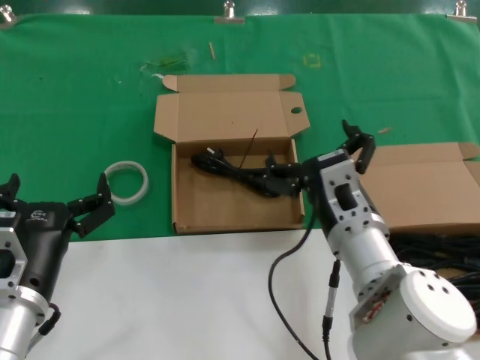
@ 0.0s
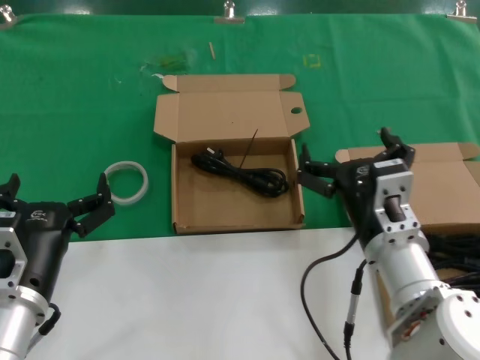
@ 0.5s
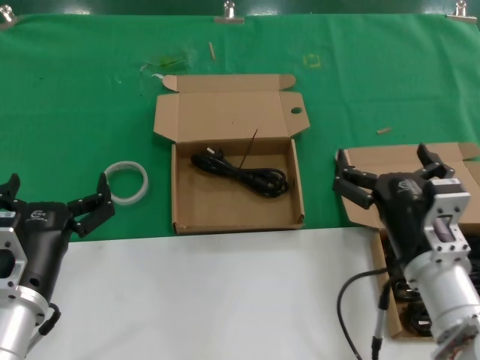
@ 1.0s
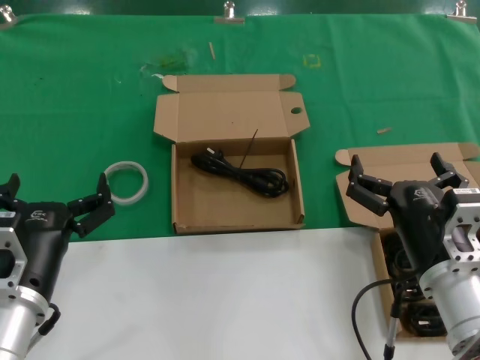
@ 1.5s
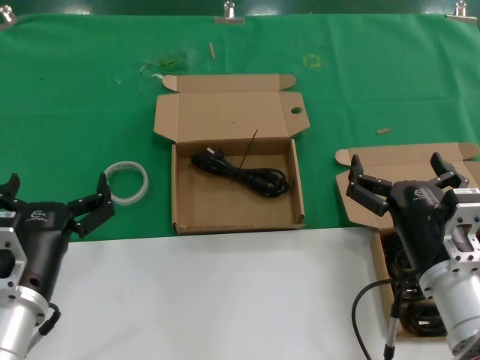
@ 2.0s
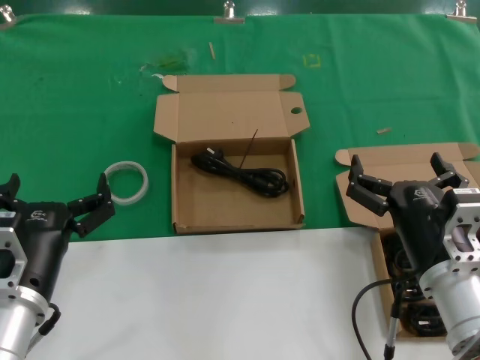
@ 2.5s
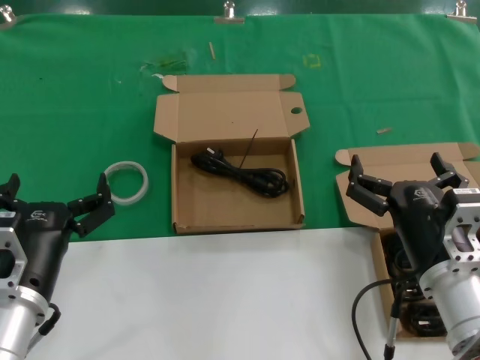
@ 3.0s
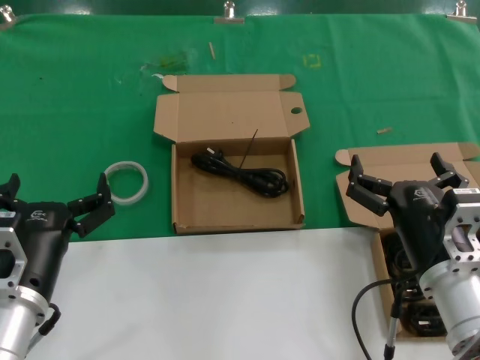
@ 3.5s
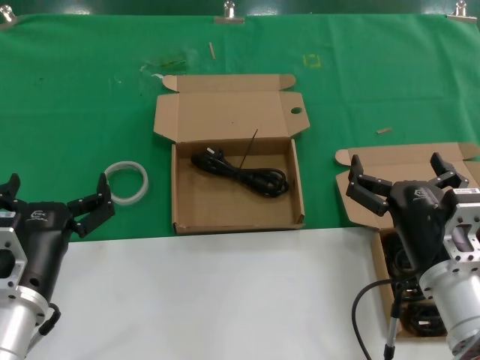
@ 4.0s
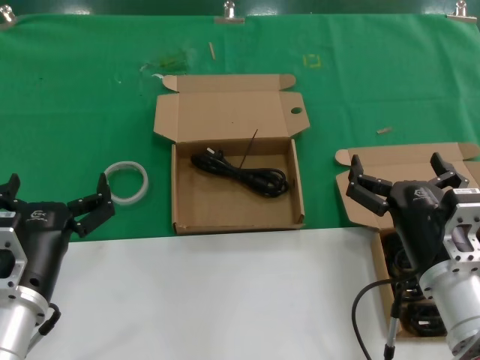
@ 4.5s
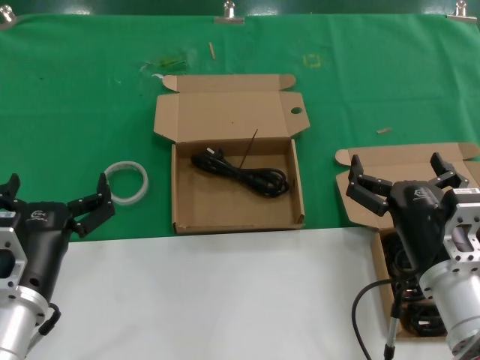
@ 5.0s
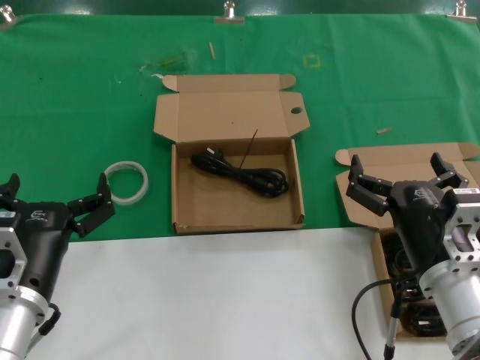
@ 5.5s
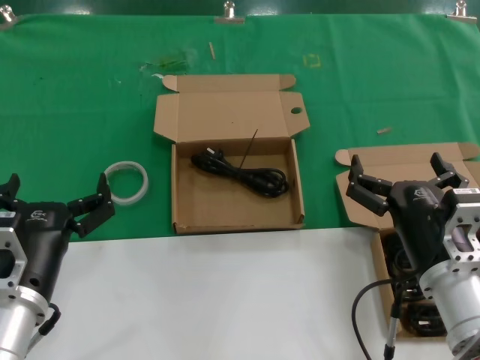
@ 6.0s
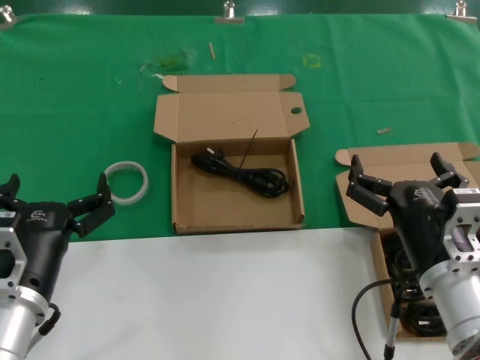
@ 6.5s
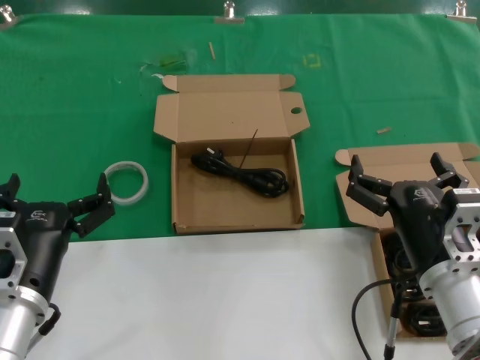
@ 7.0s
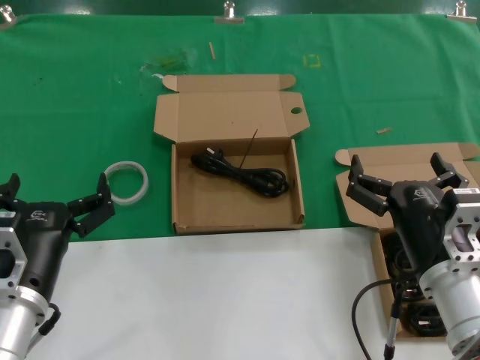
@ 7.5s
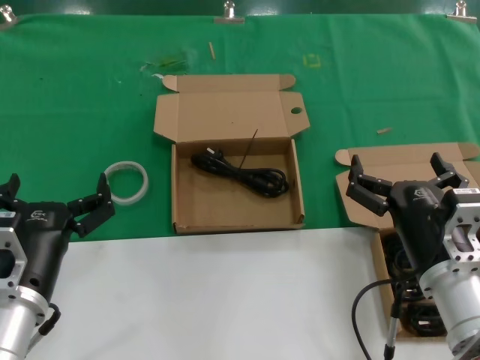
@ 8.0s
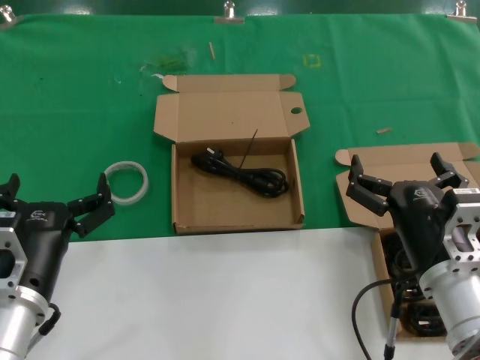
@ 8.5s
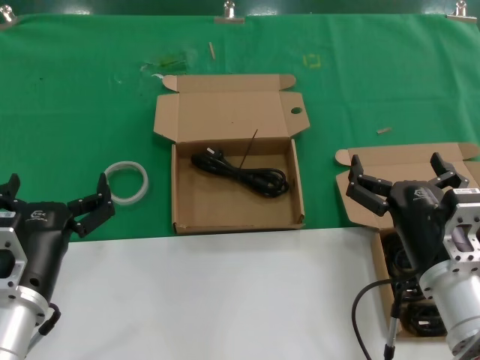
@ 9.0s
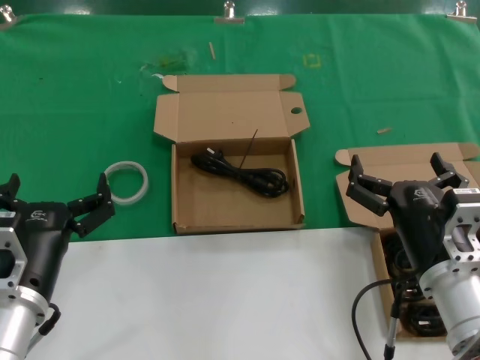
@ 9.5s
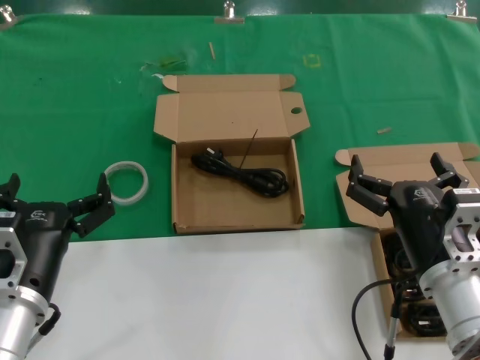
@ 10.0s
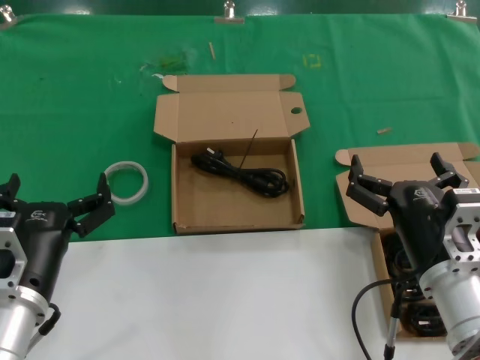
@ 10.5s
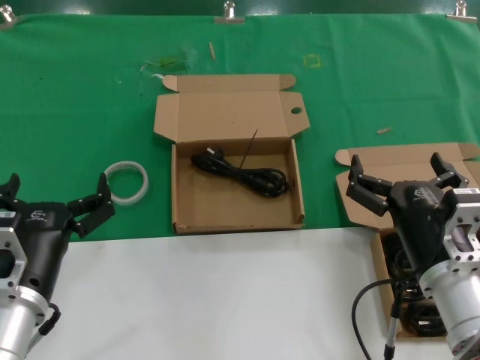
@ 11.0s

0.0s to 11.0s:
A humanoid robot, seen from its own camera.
Task of the whole recording: take the parts from the box containing them and put them into an empty box.
0.0s to 2.0s: The right hand heads to the right and backward, covering approximately 10 cm.
2.0s to 11.0s: Both hands stay about where they are.

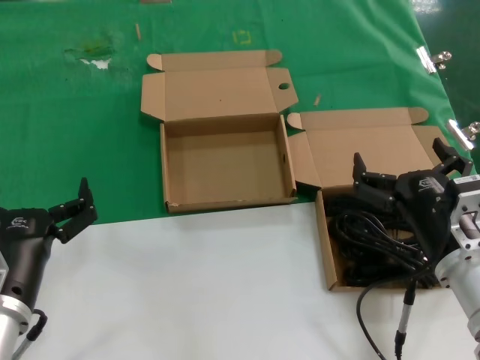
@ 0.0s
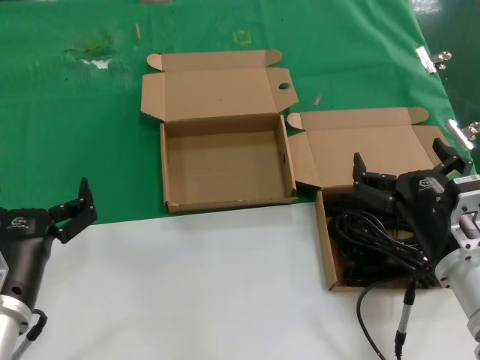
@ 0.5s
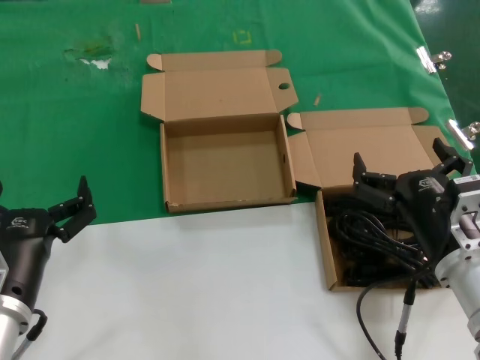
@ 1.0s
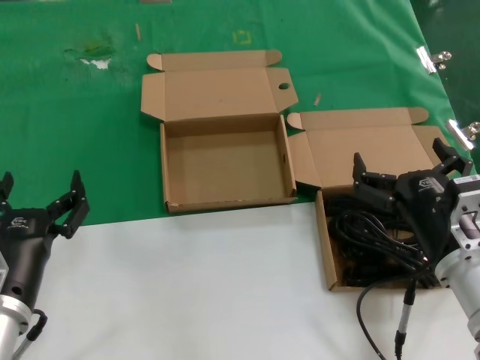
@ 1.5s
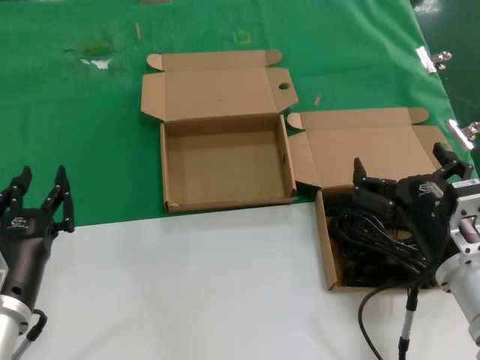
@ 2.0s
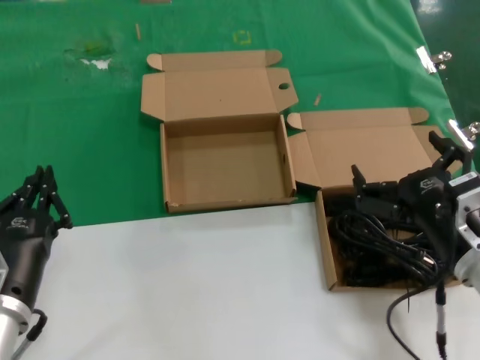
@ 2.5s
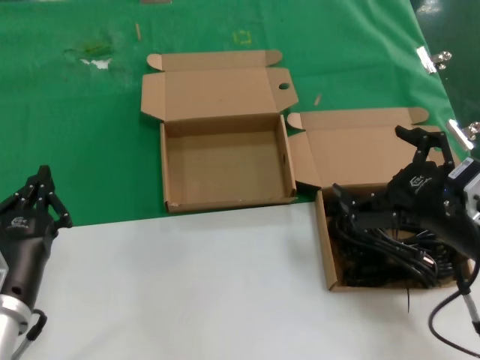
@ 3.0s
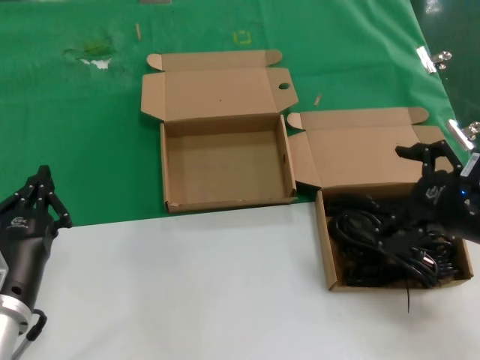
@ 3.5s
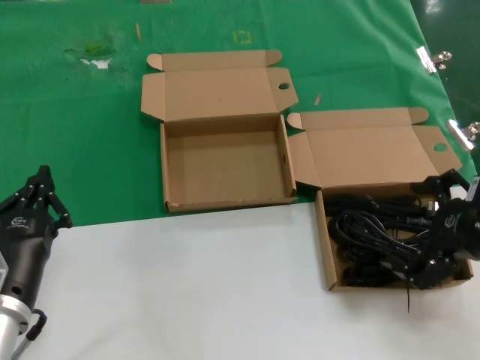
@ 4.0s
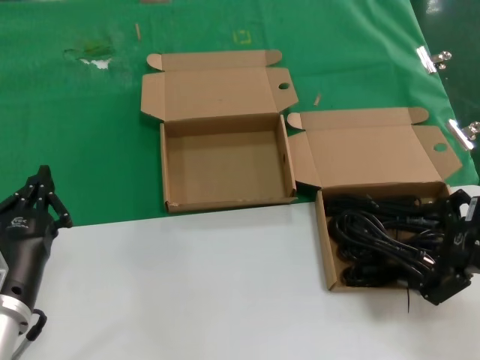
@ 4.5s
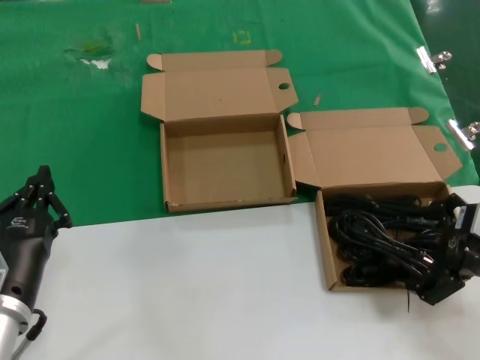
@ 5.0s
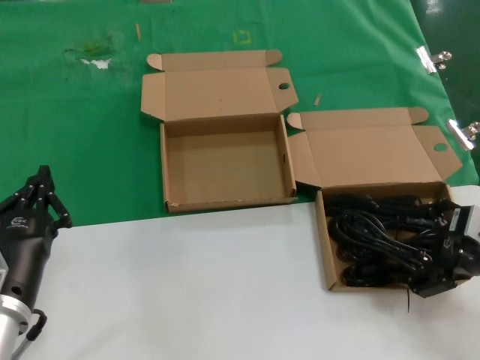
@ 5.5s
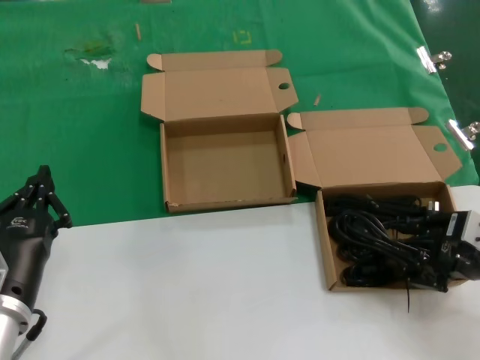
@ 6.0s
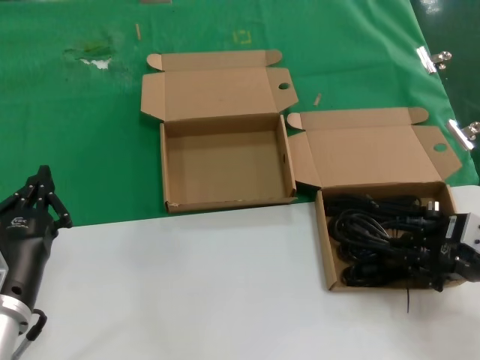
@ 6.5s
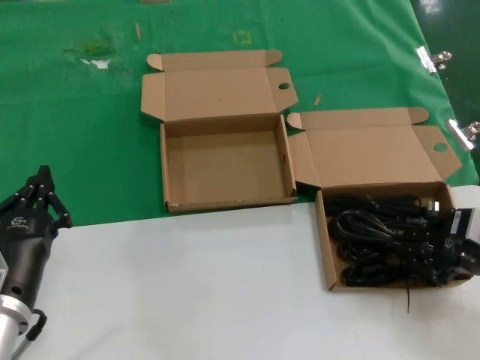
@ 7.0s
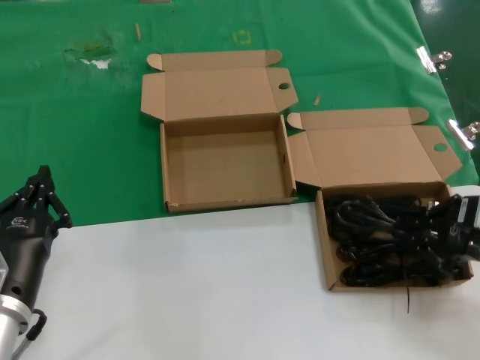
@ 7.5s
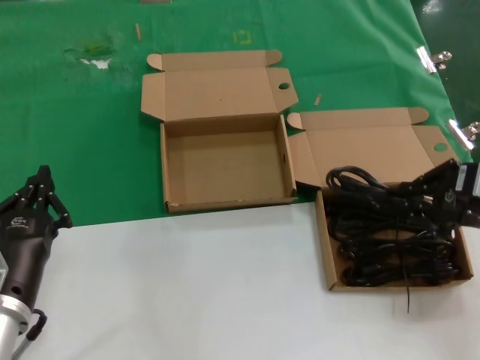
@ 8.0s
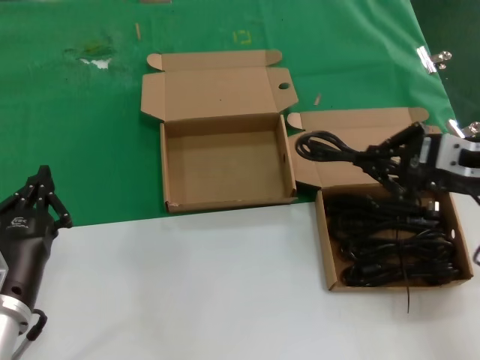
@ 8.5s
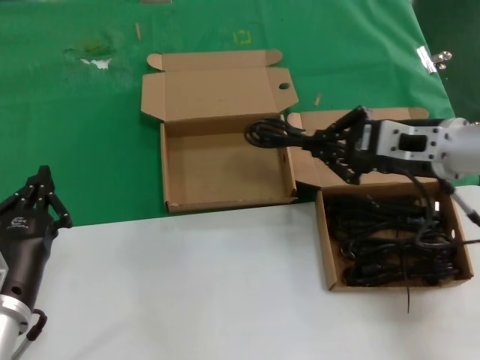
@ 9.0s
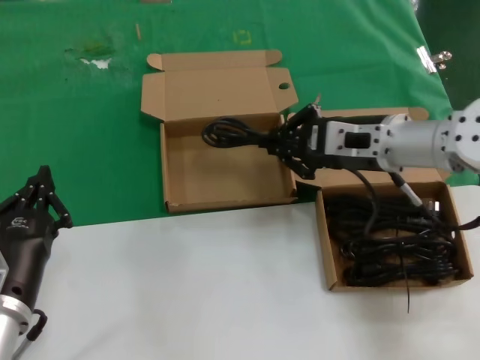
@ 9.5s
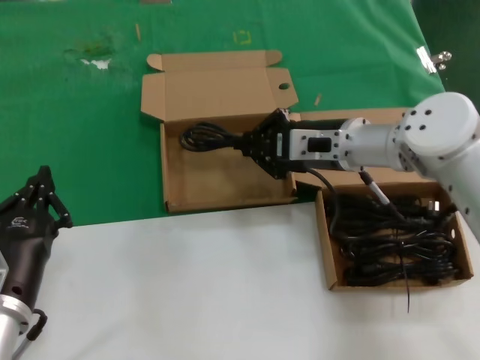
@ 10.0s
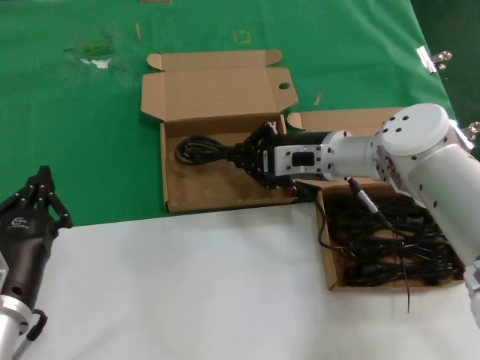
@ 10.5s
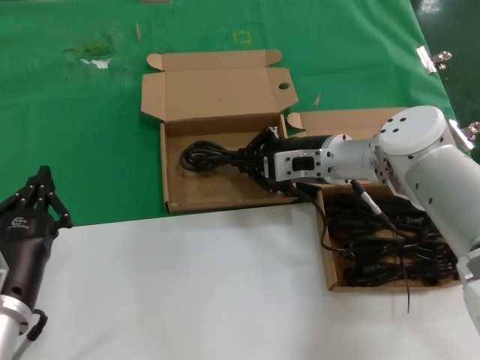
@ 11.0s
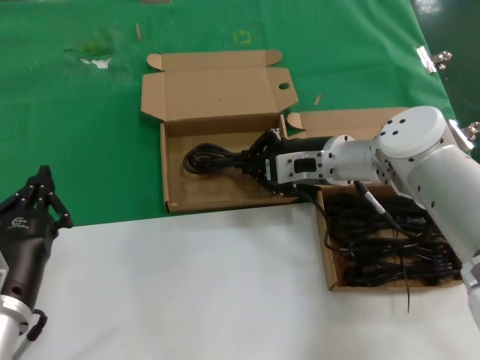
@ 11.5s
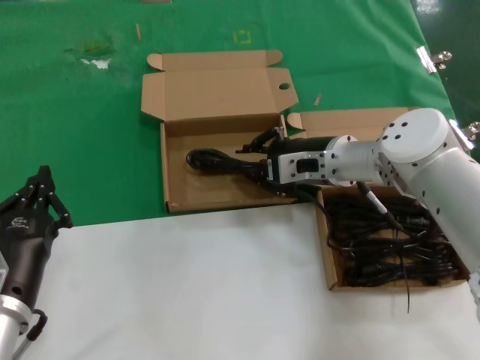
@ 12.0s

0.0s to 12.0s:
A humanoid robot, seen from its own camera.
Task of the whole recording: take the parts from the box containing them and put them into an empty box.
Step, 0.0s to 6.5s: Grasp the data cable.
0.0s to 2.0s: Both hands stay put.
2.0s to 4.0s: The right hand moves upward and to the right, about 15 cm.
4.0s to 6.0s: The right hand travels downward by some 5 cm.
6.0s to 8.0s: The right hand travels upward by some 5 cm.
8.0s to 10.0s: The right hand goes about 25 cm to the left and forward.
10.0s to 12.0s: The hands make only small movements.

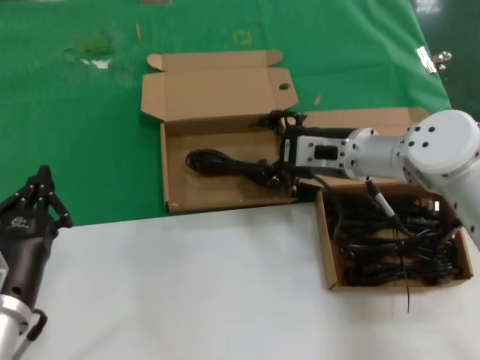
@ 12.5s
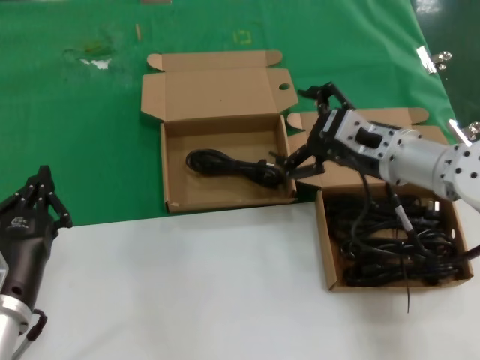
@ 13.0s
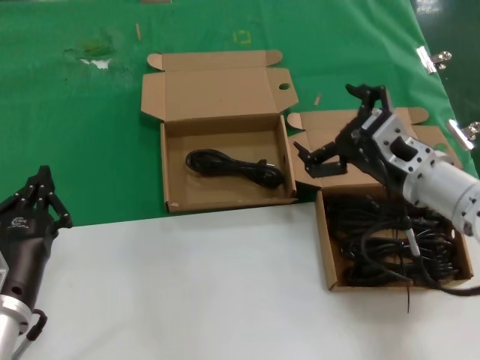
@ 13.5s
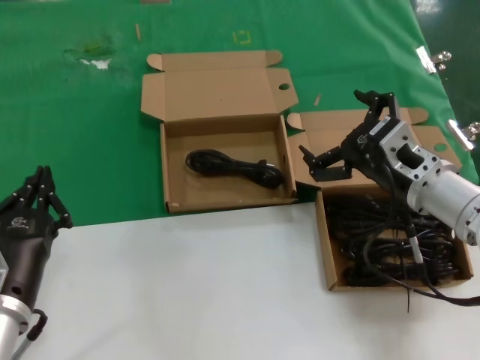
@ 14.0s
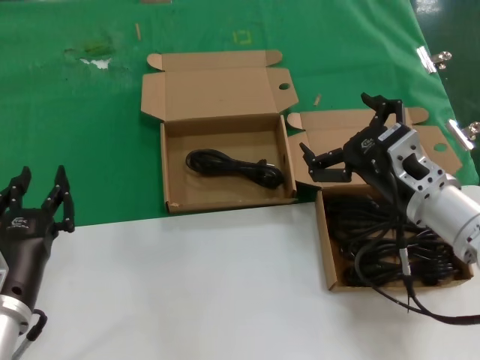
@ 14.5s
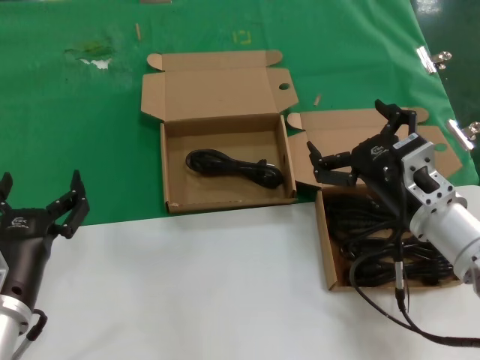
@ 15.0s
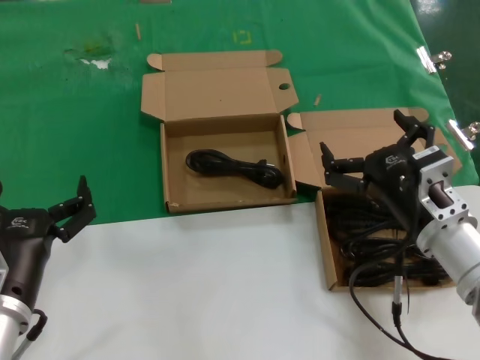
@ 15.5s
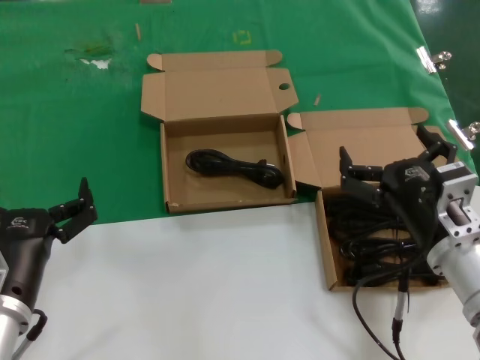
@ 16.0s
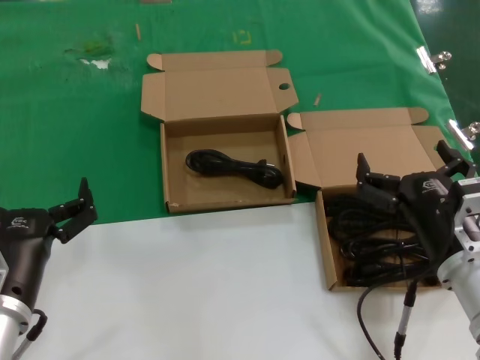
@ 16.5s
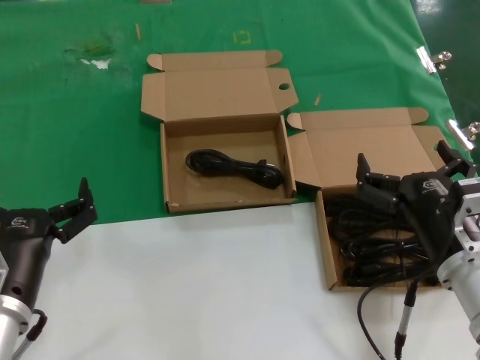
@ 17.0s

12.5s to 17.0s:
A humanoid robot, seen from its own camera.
Task of the whole recording: take the parts from the box containing them and put them into an empty box.
12.5s to 14.5s: The right hand moves backward, roughly 10 cm.
14.5s to 17.0s: The right hand goes some 10 cm backward.
